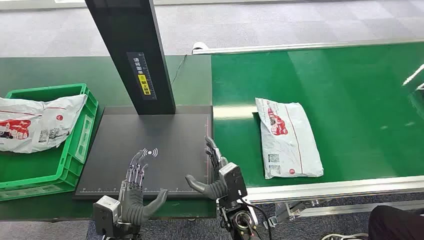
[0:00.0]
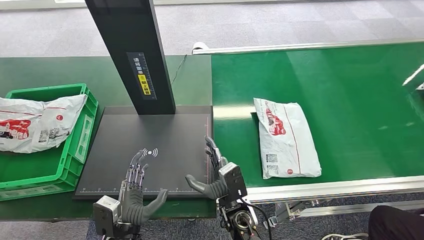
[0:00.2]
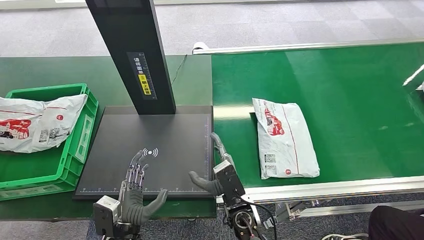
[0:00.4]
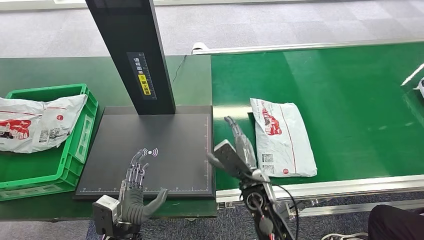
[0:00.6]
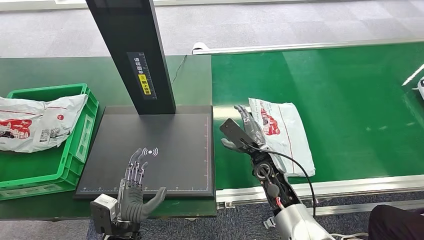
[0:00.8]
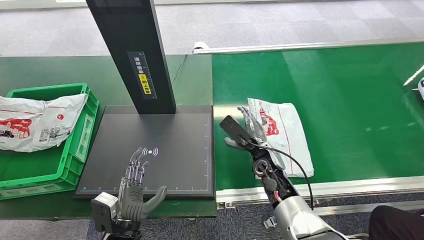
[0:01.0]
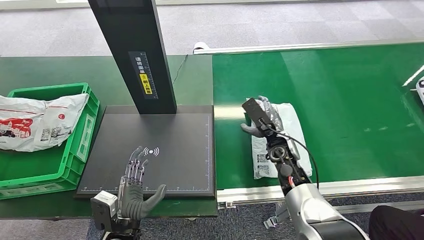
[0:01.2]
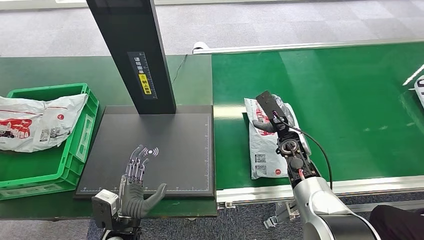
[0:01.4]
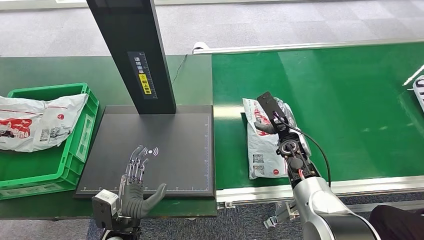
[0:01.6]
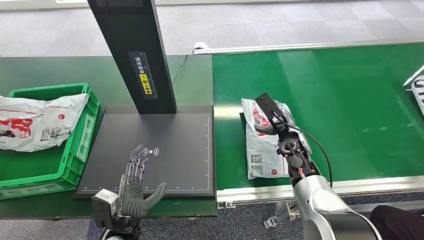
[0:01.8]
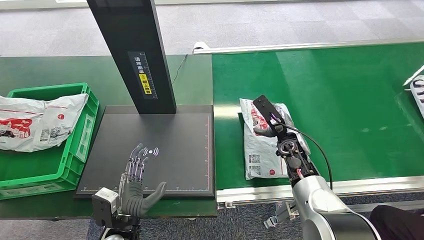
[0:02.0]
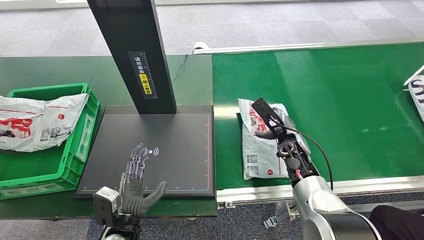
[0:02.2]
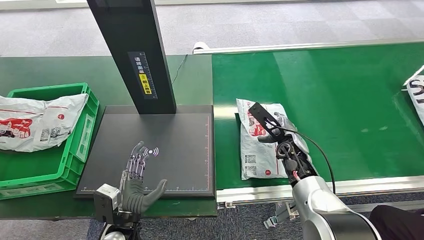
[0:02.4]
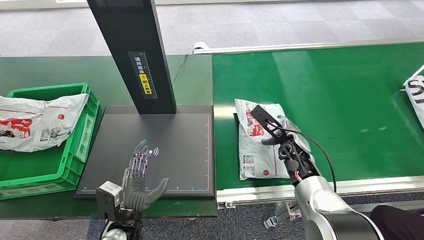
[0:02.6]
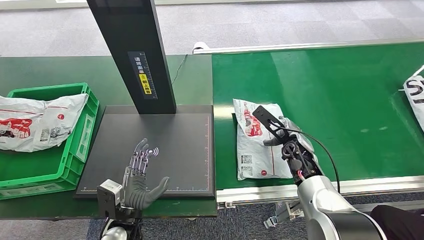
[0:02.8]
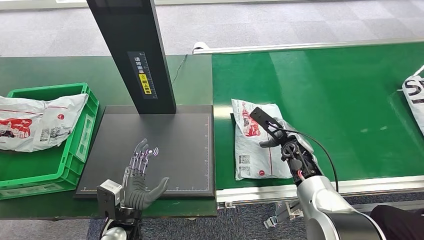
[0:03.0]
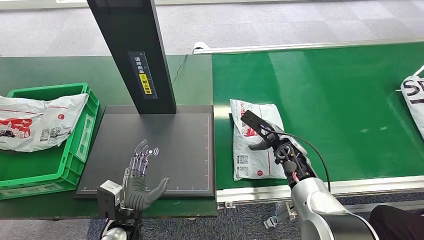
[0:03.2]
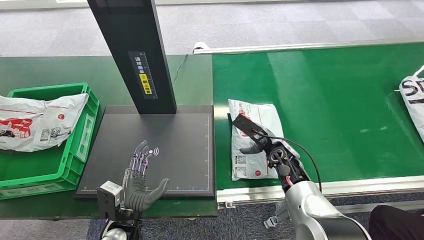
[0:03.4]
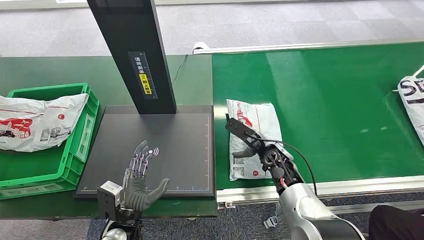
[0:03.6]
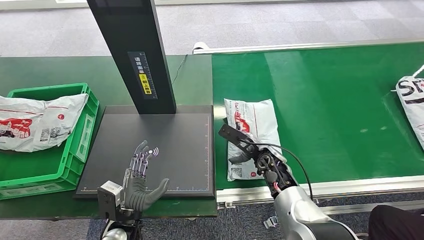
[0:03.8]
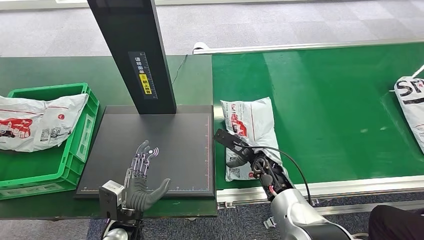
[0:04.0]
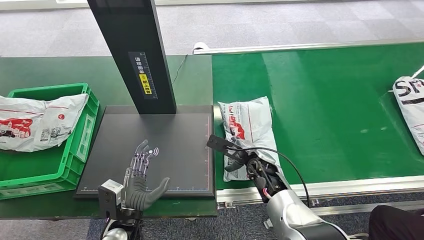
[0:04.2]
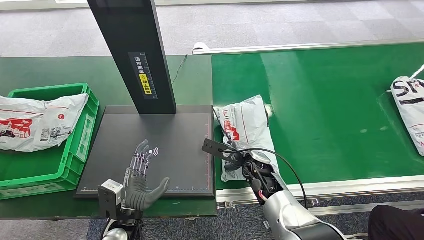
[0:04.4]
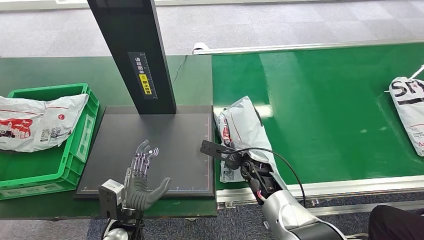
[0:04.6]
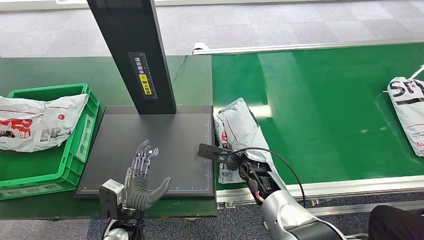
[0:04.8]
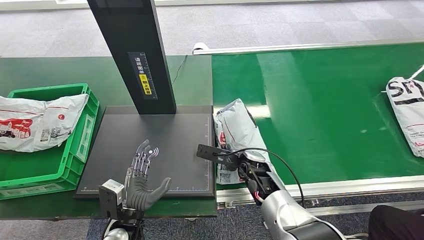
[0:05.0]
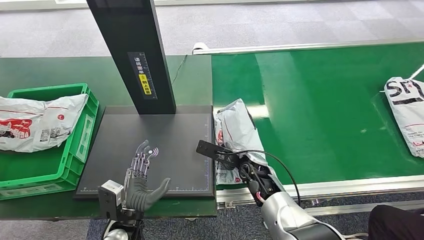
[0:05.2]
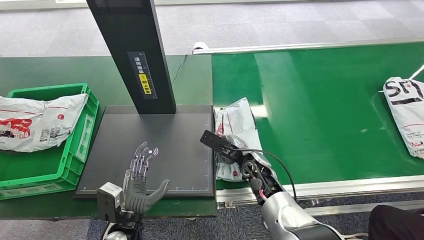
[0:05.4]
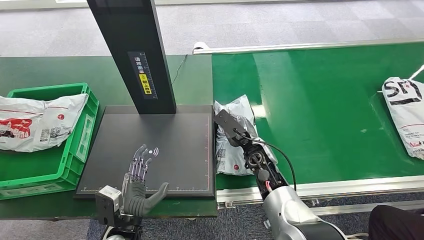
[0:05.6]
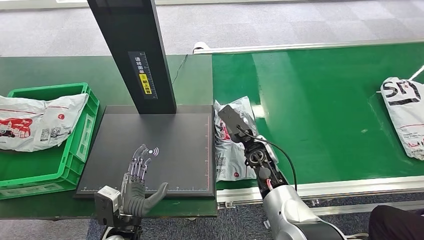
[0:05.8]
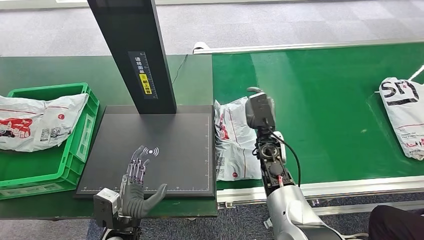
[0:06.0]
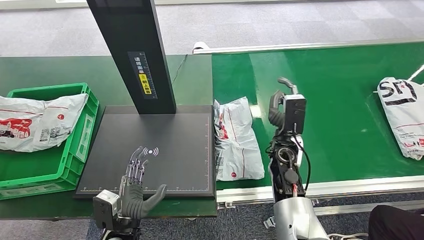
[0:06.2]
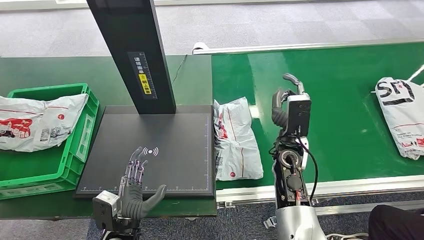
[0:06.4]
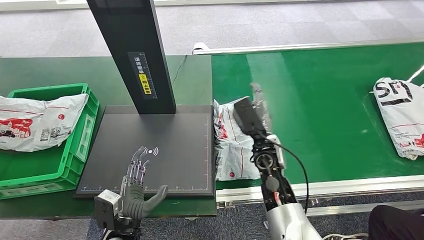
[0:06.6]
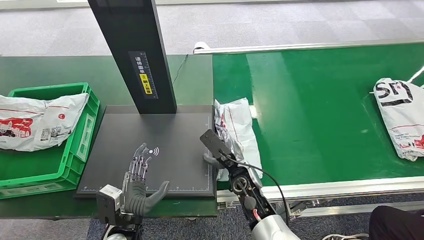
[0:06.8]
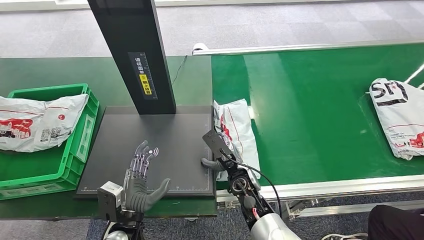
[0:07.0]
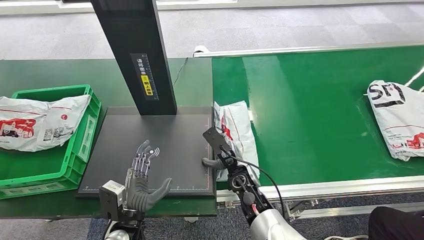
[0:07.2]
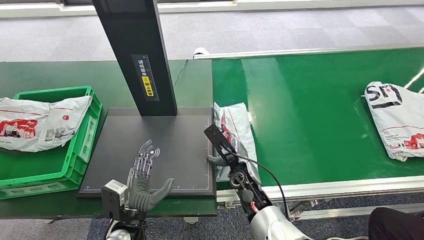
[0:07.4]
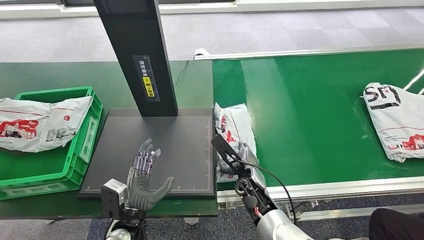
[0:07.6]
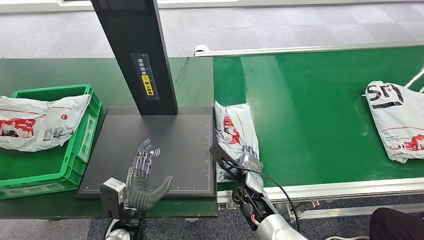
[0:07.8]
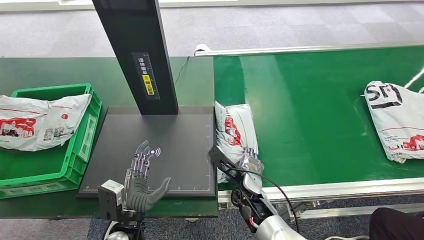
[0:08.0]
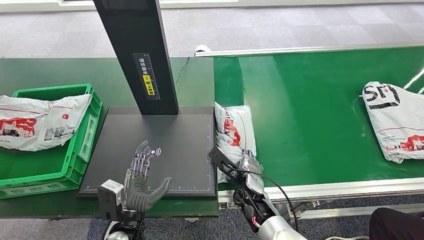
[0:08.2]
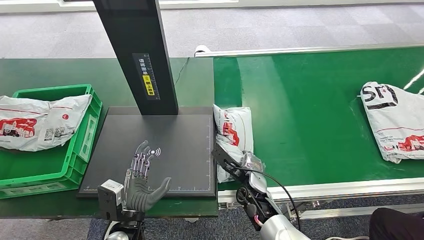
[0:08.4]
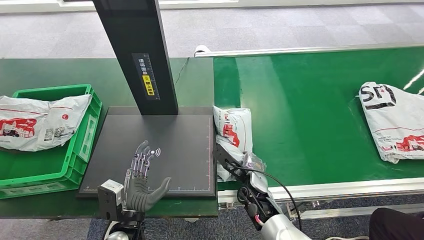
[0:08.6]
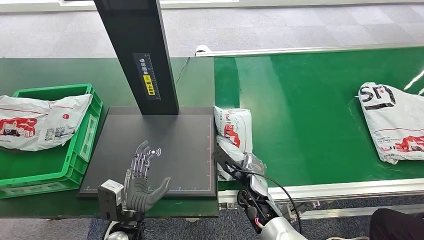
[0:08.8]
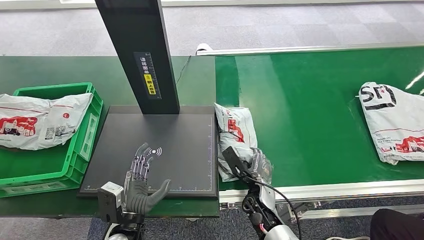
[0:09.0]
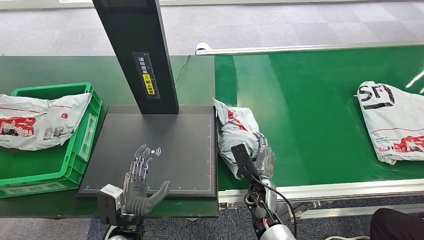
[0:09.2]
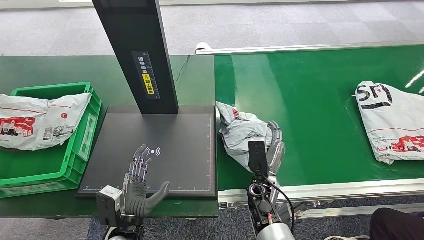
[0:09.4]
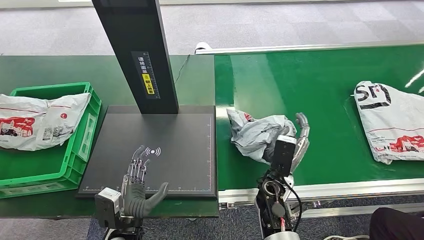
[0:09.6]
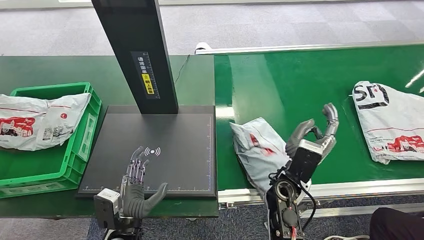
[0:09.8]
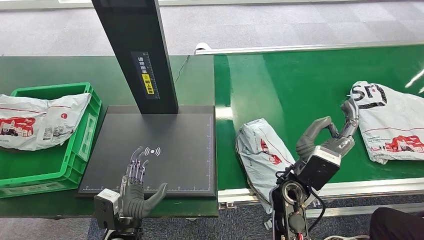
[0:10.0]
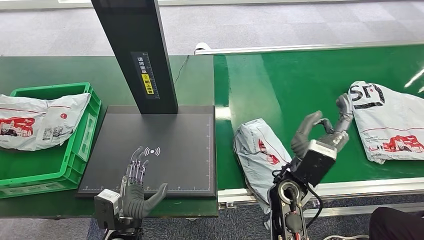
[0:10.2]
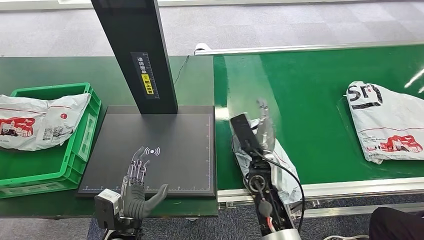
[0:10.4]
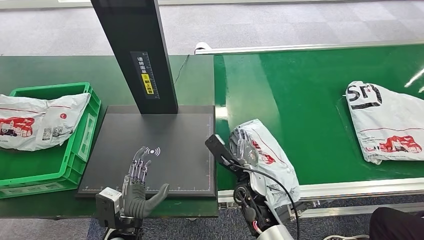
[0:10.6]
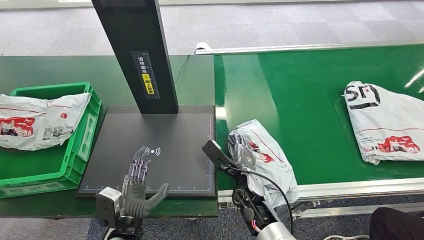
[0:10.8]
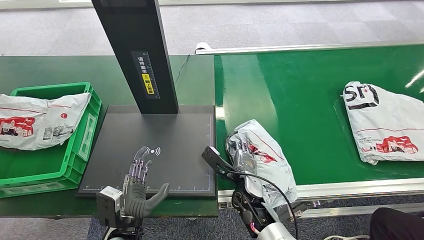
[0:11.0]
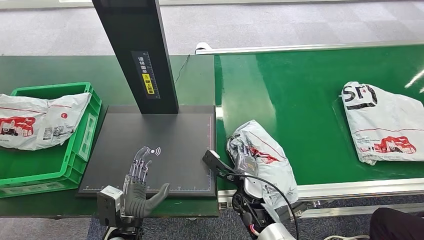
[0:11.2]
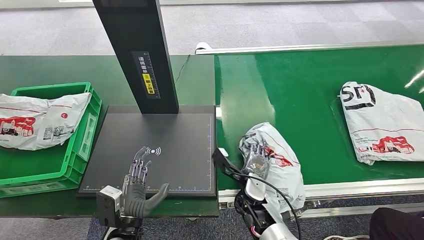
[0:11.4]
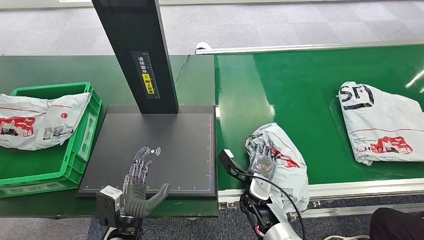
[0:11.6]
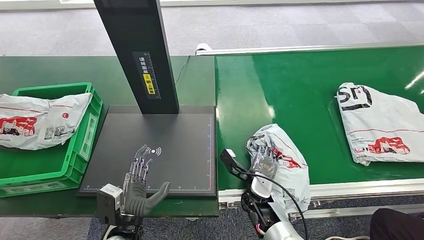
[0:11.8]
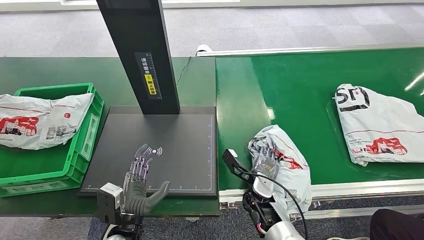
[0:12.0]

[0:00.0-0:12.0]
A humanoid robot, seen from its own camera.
0:03.0 to 0:04.4: The right hand is displaced to the left by roughly 10 cm.
0:04.4 to 0:06.0: The right hand ends up about 5 cm from where it was.

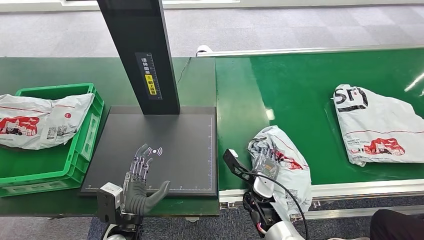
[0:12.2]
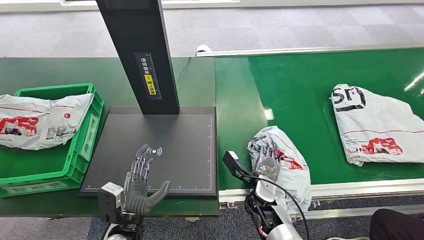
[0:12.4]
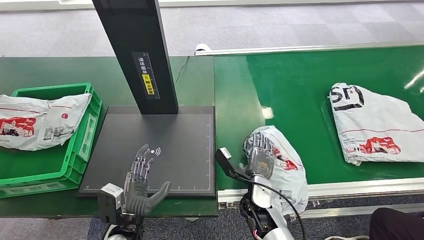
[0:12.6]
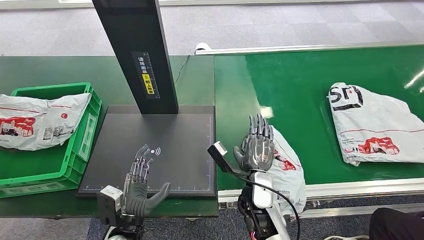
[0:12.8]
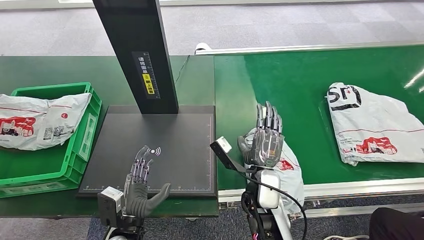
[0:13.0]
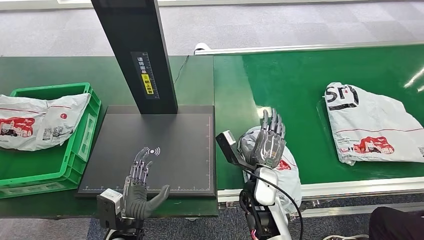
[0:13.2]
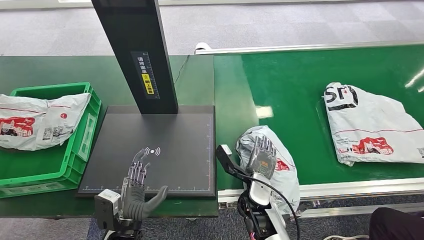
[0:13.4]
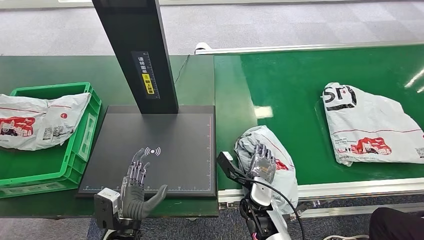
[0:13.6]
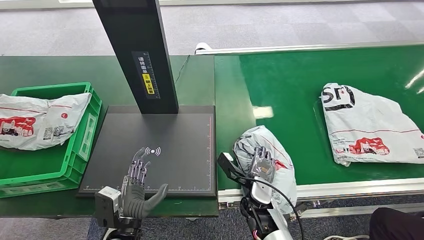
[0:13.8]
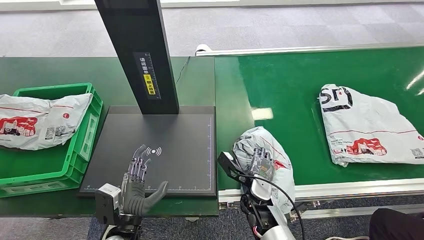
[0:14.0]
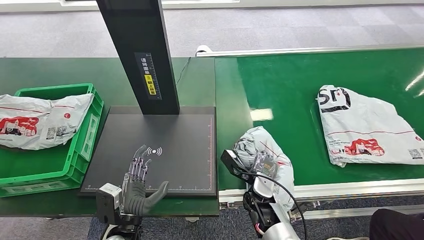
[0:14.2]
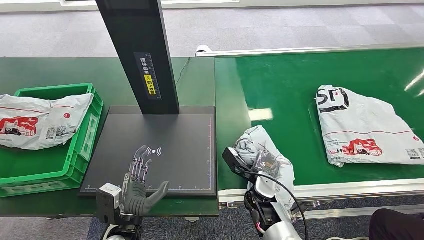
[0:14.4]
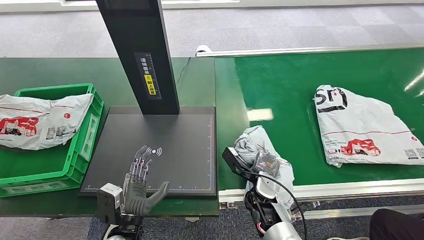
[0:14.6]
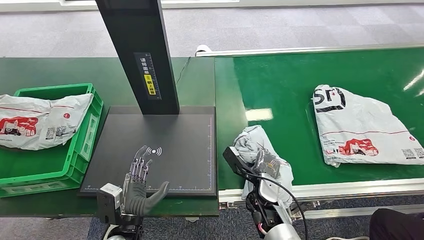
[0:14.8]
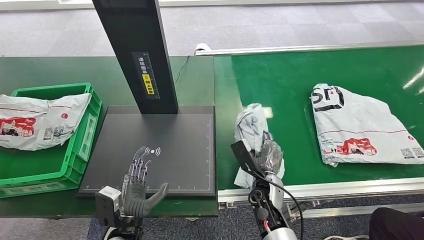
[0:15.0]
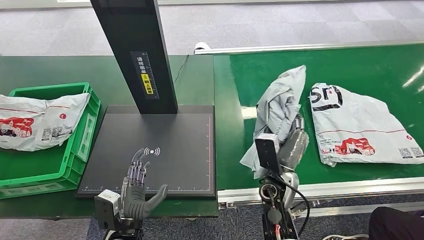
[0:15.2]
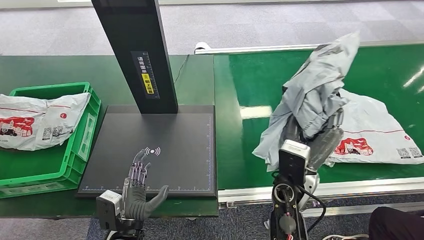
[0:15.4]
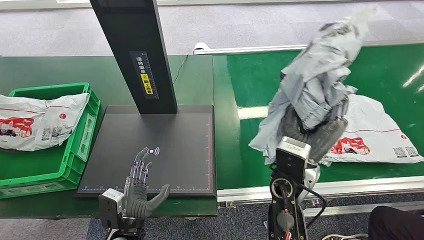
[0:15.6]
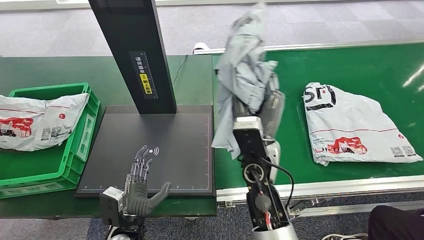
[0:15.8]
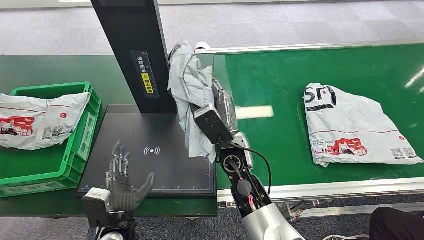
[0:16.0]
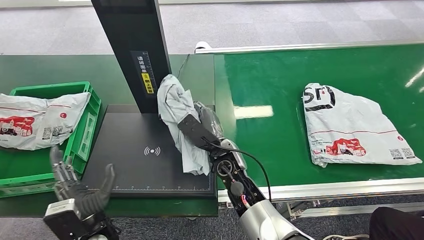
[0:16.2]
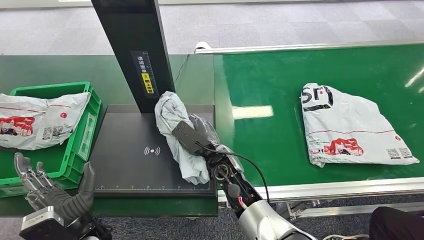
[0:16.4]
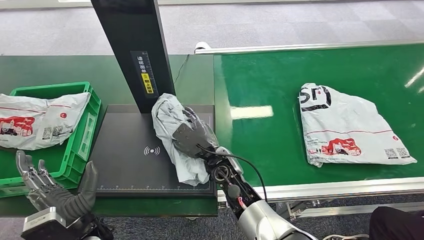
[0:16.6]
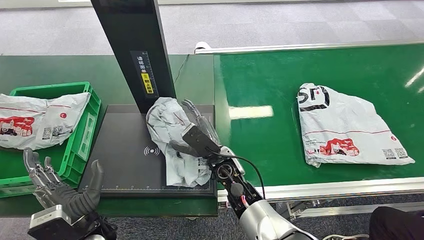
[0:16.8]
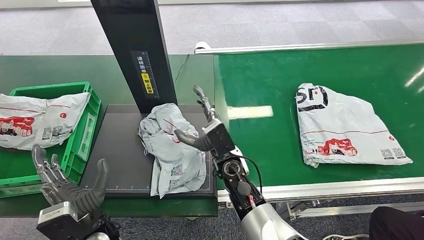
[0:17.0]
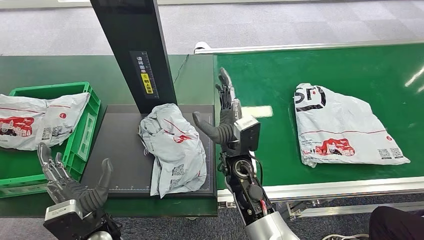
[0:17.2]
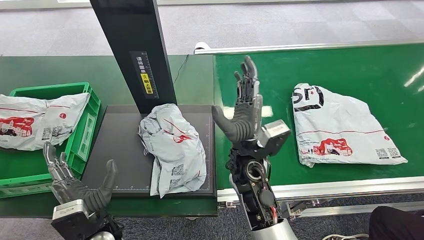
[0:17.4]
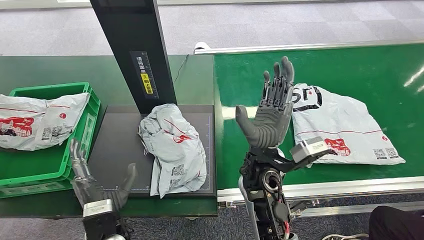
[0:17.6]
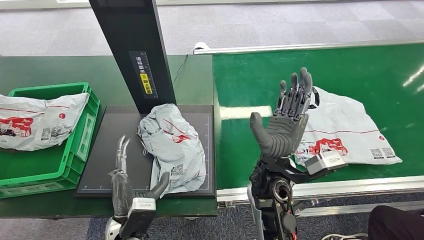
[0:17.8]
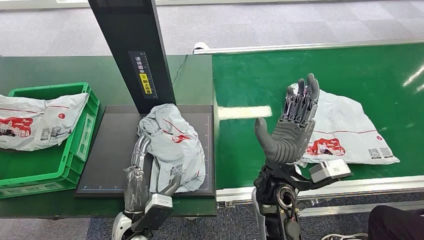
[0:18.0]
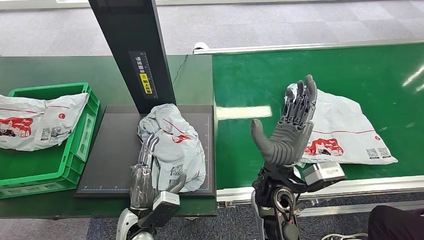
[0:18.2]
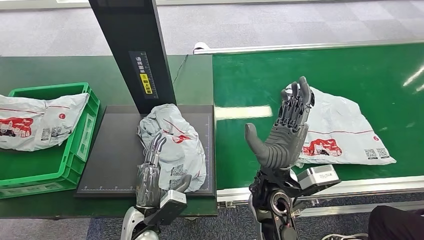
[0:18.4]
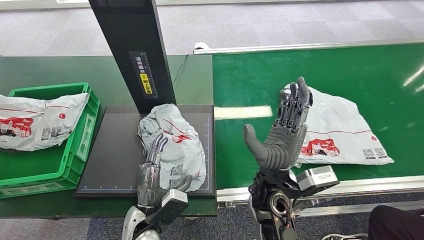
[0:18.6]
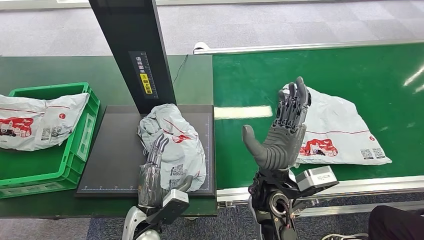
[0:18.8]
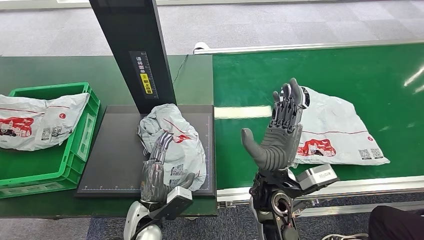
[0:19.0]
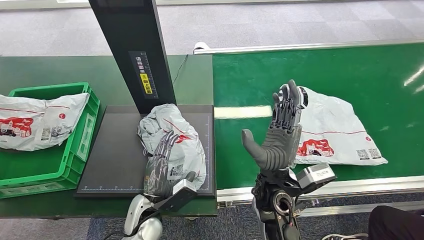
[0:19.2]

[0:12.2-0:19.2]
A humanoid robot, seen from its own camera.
Step, 0:12.2 to 0:15.6: Pick up the package from the conveyor belt.
Step, 0:15.8 to 0:17.6: Place the package onto the inbound machine.
0:17.8 to 0:19.2: The left hand moves approximately 5 cm.
